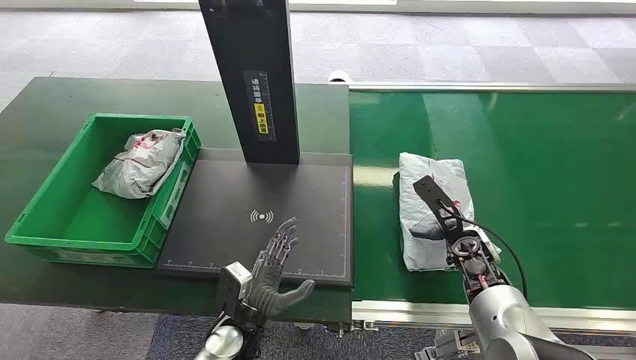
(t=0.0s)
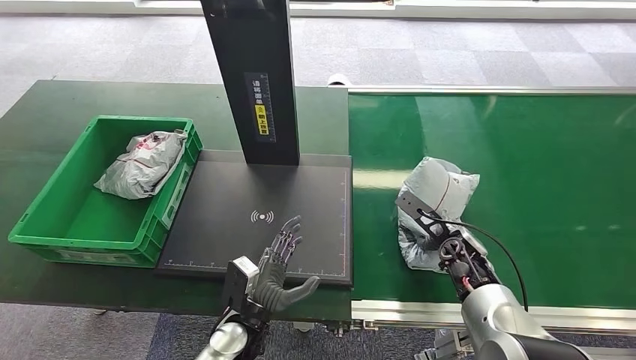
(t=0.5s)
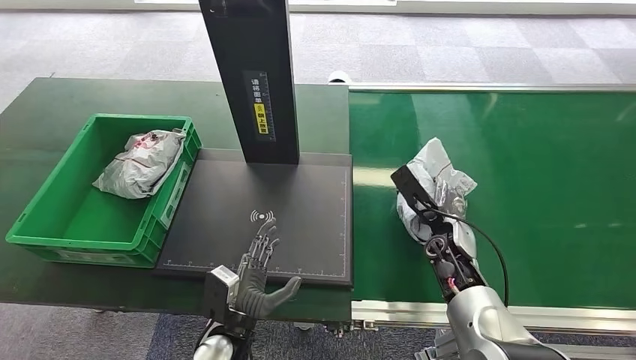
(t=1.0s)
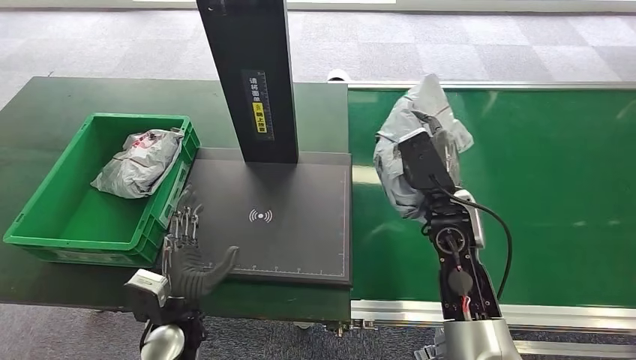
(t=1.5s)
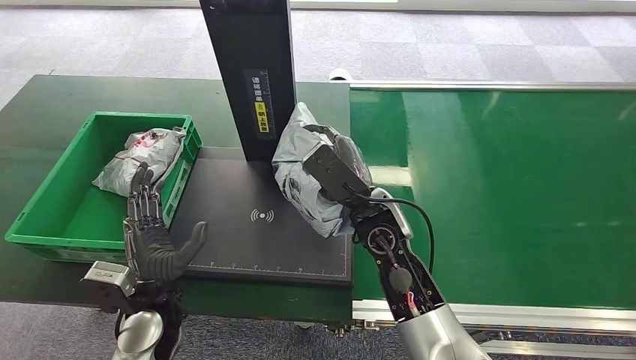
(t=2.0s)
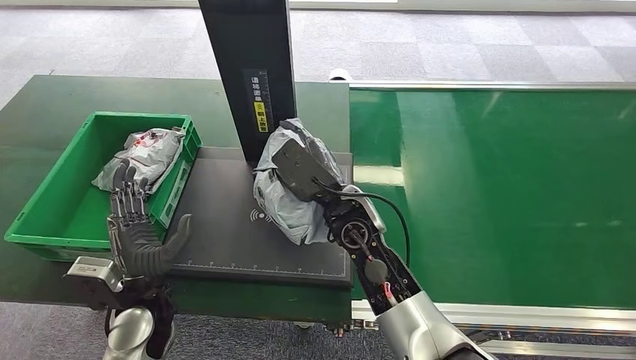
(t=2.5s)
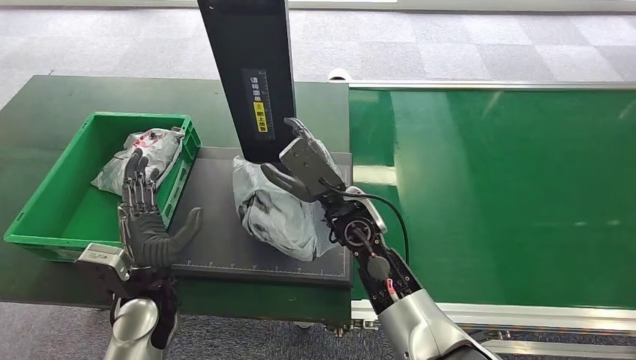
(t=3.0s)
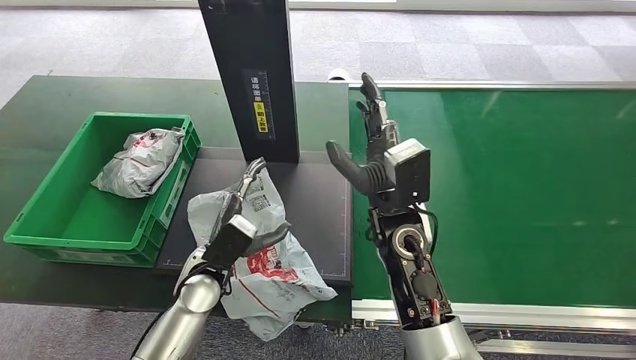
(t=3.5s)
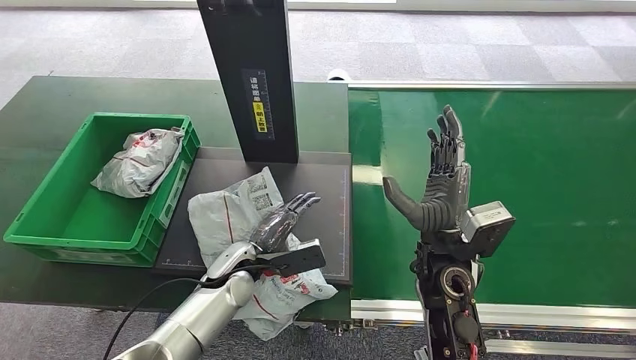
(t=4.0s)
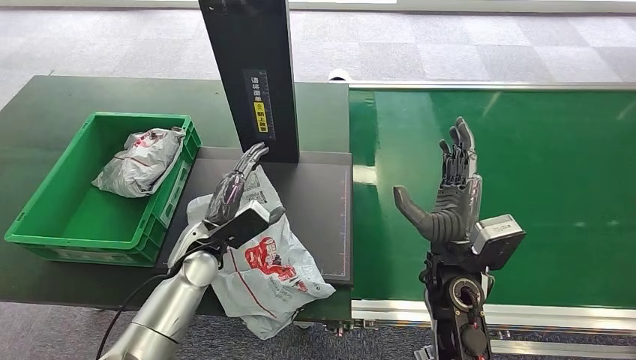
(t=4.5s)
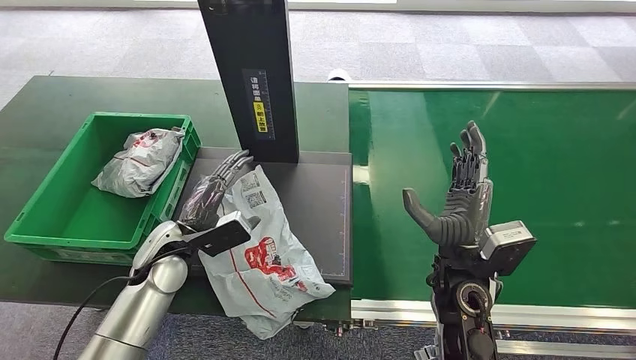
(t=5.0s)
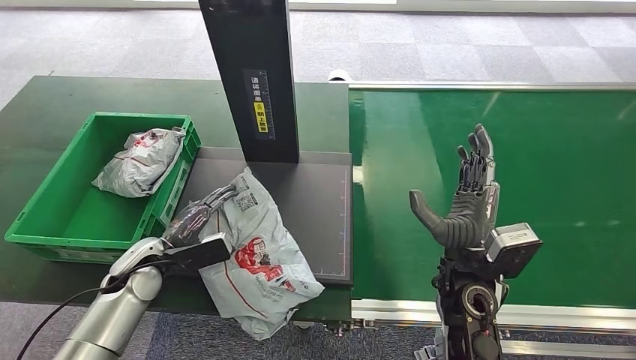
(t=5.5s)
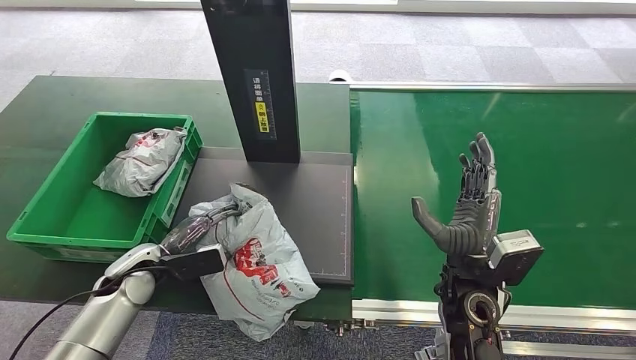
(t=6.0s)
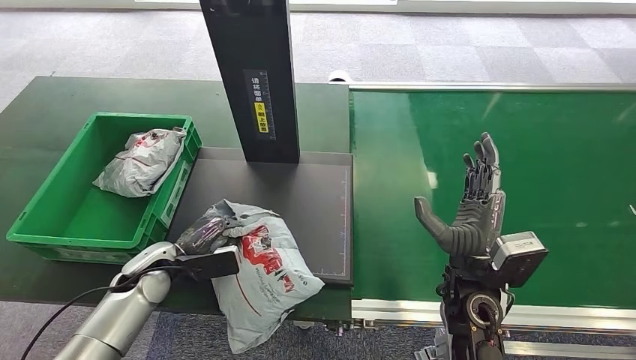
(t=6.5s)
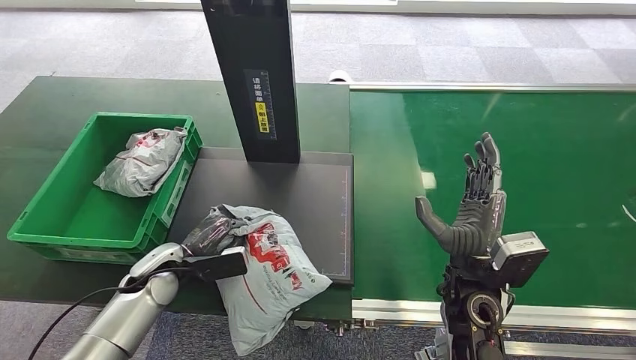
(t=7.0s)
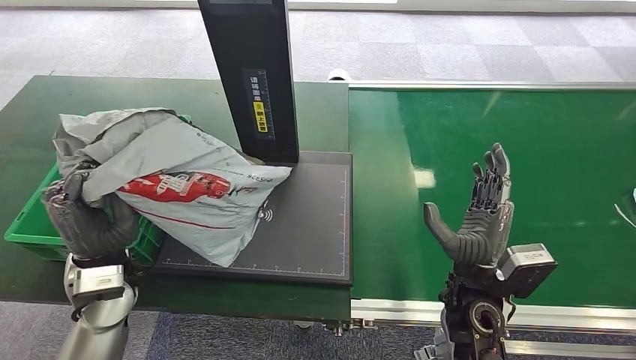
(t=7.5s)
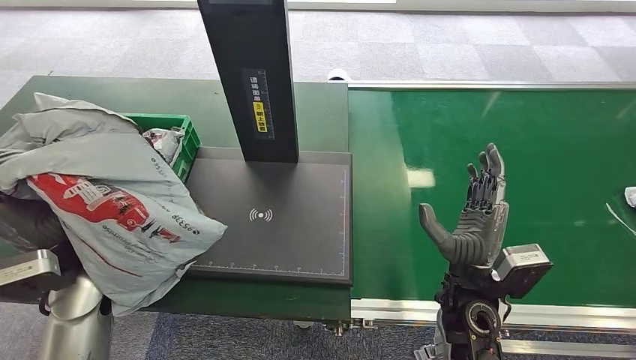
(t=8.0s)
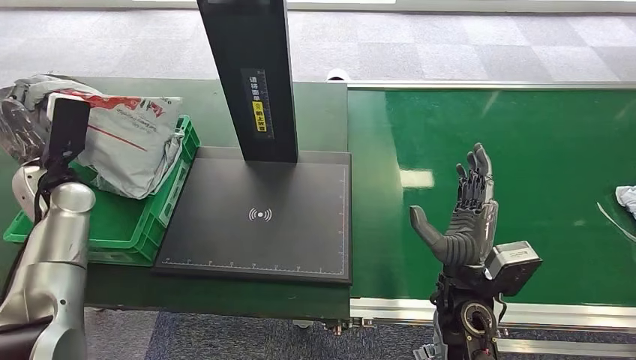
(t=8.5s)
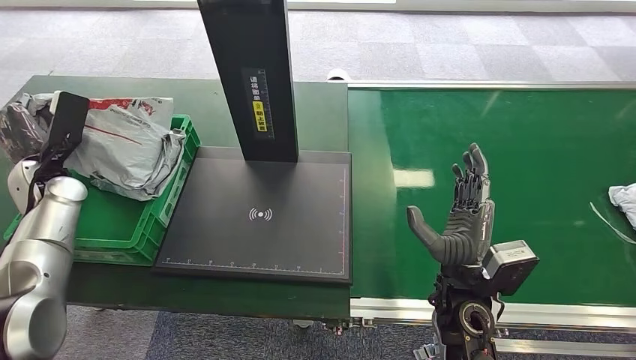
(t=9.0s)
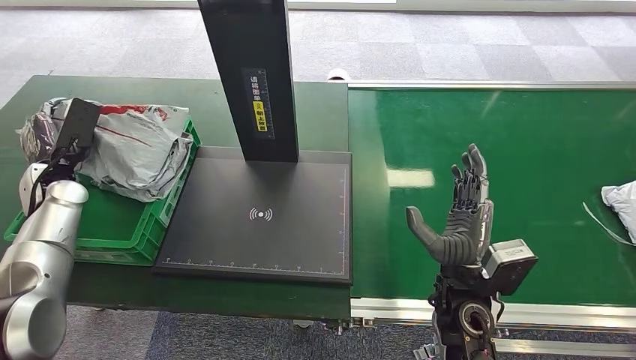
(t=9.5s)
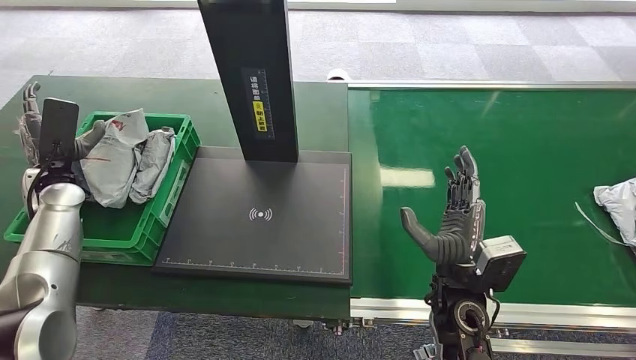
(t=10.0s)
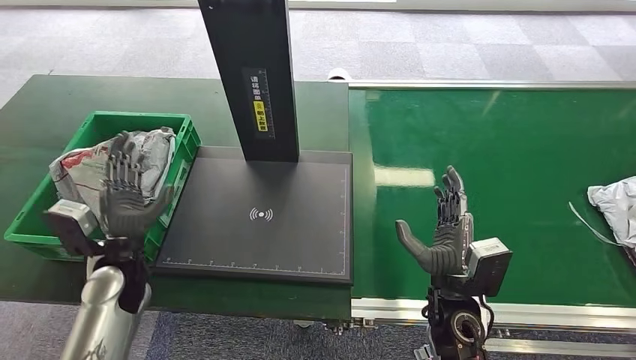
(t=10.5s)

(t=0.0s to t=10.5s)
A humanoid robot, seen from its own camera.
Step, t=0.0s - t=1.0s: Pick up the package from the conveyor belt.
Step, t=1.5s - t=3.5s: Place the package onto the inbound machine.
Step, t=5.0s - t=7.5s: Pick up the package from the inbound machine.
Step, t=8.0s - t=10.0s: Place the package into the parcel locker.
